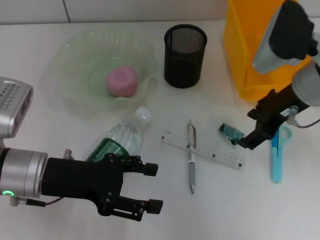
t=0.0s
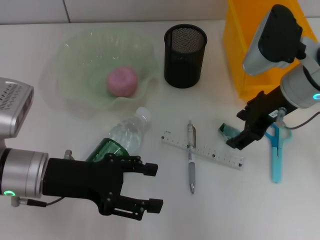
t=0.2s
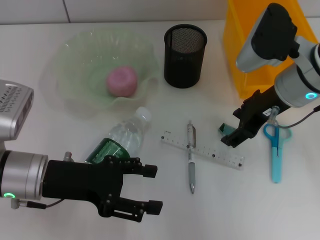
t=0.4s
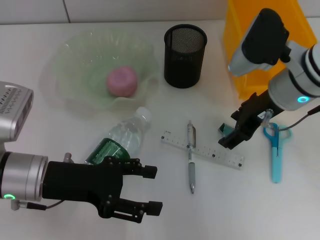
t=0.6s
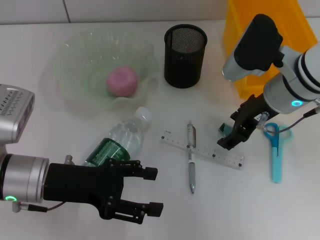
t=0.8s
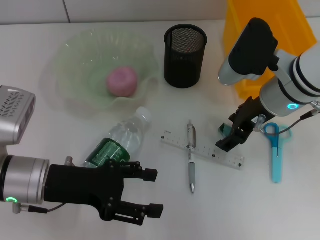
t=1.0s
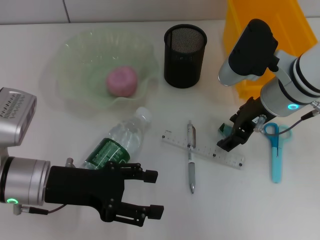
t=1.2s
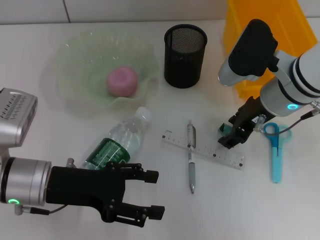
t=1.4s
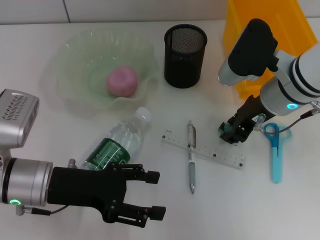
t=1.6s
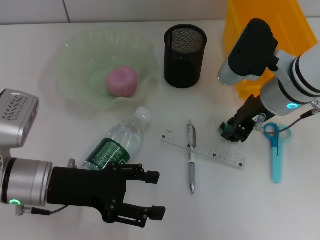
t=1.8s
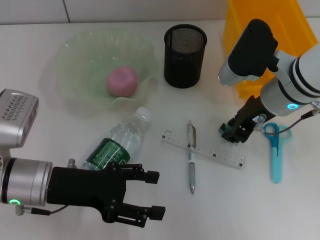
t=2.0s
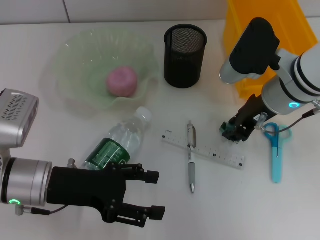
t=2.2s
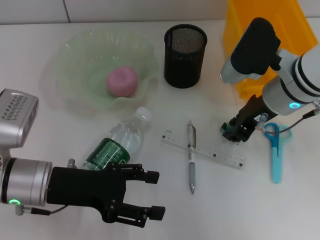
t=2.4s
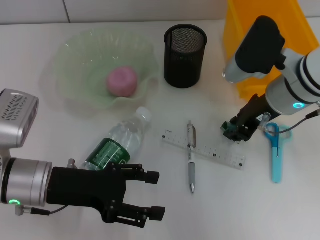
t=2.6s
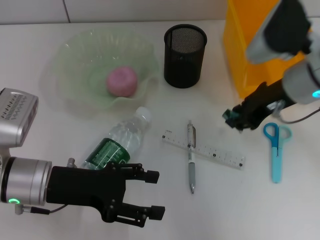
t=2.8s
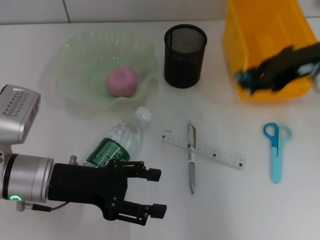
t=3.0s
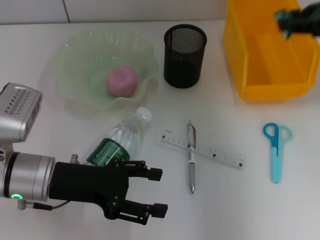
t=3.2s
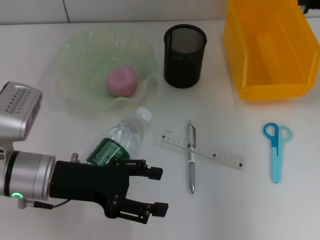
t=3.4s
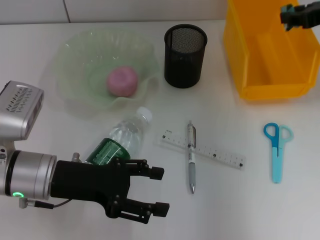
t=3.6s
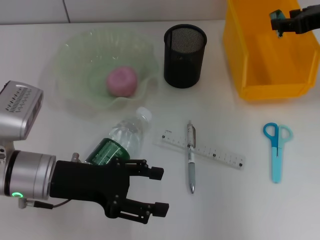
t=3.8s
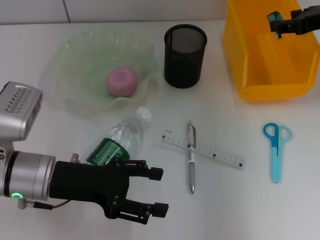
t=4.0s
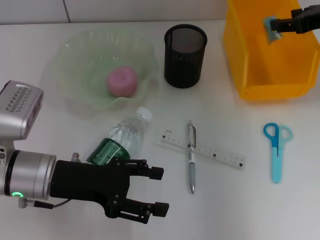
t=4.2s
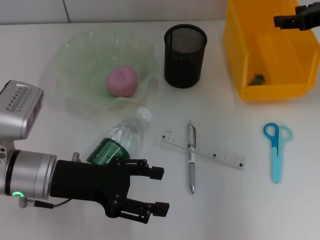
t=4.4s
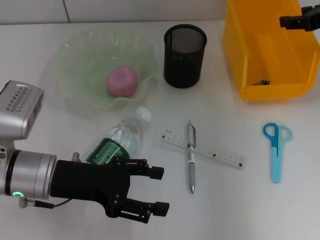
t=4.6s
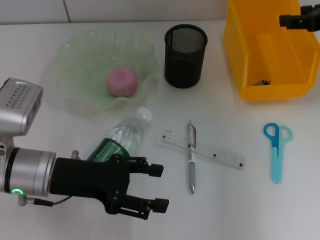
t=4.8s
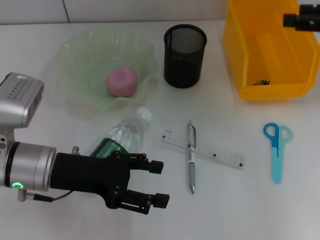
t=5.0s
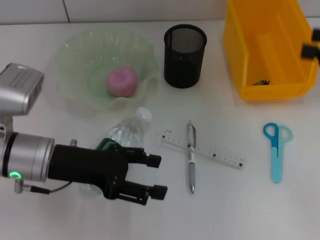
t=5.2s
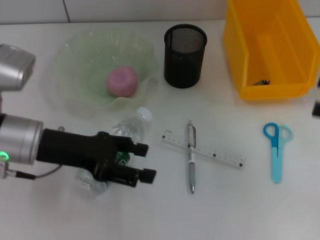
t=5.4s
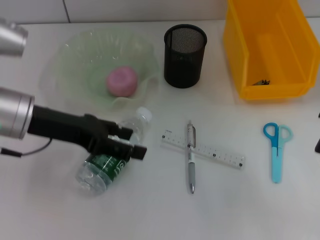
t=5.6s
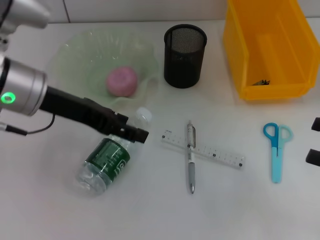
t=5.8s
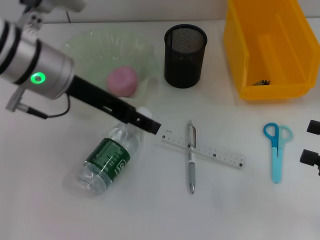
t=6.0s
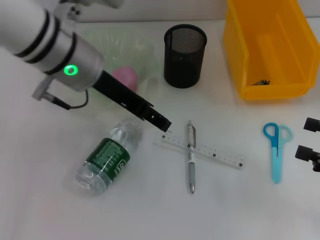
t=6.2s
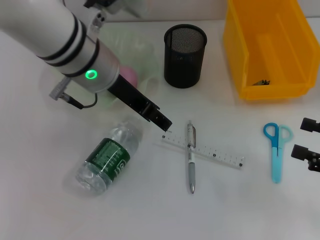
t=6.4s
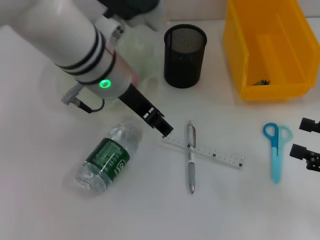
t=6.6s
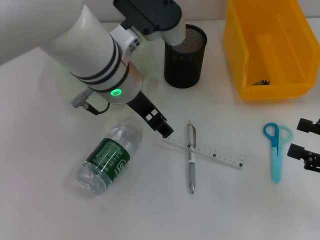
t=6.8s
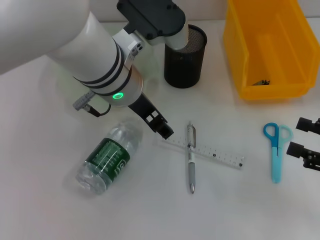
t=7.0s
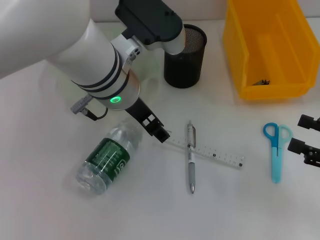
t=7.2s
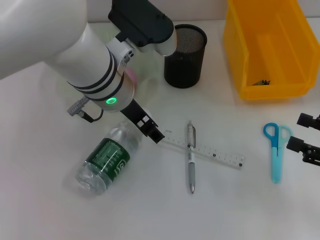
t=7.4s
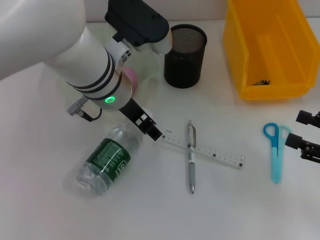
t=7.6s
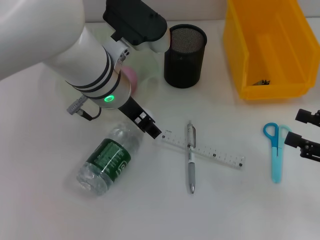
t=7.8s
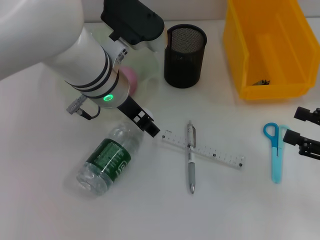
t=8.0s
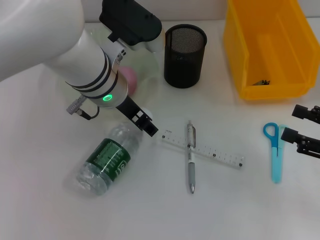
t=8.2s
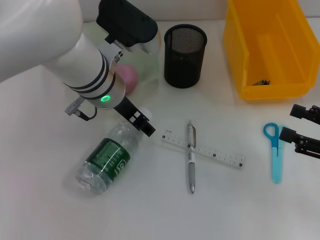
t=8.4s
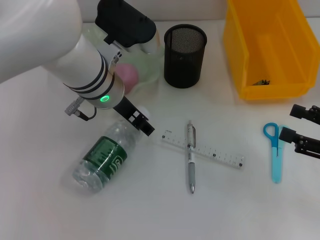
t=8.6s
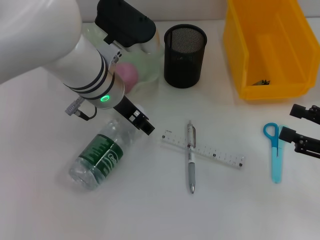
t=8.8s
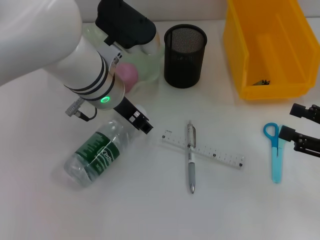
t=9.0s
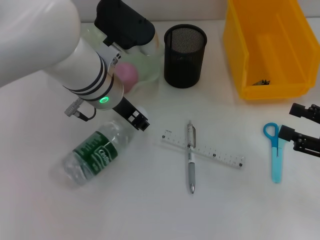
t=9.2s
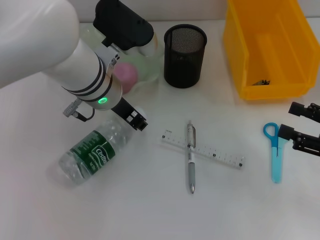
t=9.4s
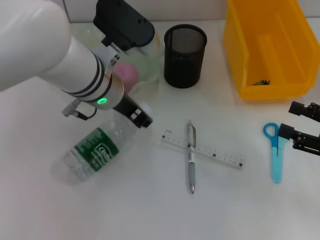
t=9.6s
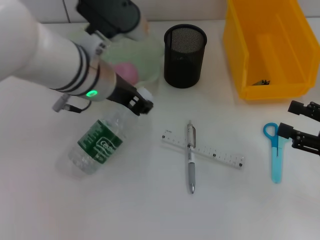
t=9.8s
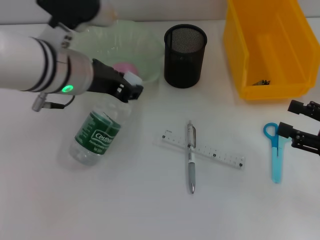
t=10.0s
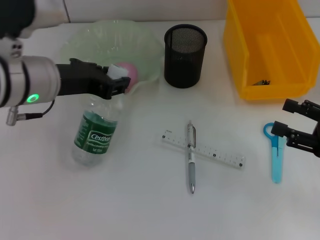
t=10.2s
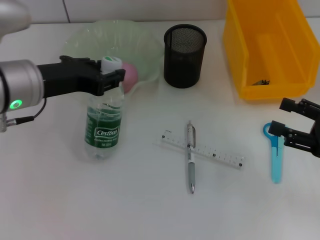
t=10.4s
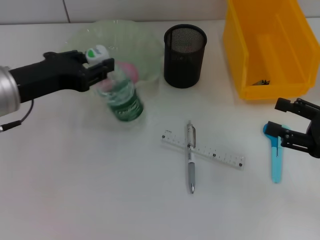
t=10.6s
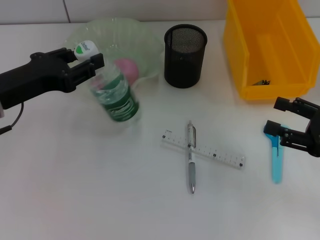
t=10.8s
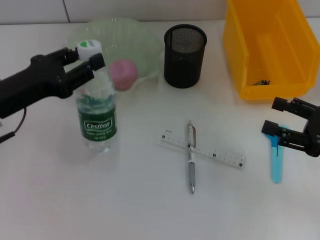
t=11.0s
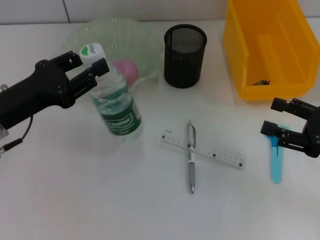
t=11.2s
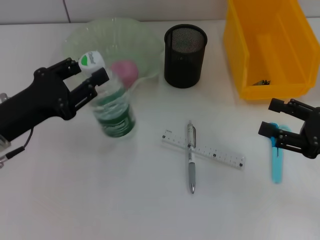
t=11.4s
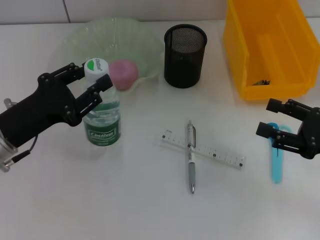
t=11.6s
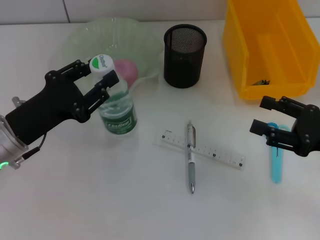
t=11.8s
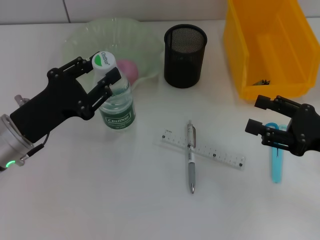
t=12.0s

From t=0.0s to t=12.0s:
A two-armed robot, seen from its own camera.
Step, from t=0.0s to t=1.8s: Grab the plastic with the right hand.
Step, from t=2.0s to t=4.2s: Place the plastic into the trash can with the right hand.
Step, from t=4.6s to t=9.2s: Grab the water bottle with the left hand.
From t=1.6s to t=3.0s: The right gripper moves upward and to the right, about 10 cm, and closes up.
From t=3.0s to t=4.4s: The right gripper shifts some 10 cm to the right and forward, and opens its fingers.
From t=4.4s to t=6.0s: The left gripper shifts roughly 15 cm upward, forward and to the right; the right gripper heads backward and downward, covering some 25 cm.
From t=6.0s to t=7.6s: The left gripper heads to the right, covering roughly 10 cm.
From t=7.6s to t=9.0s: The grippers make only small movements.
From t=9.0s to t=10.4s: The left gripper heads to the left and backward, covering approximately 10 cm, and closes its fingers.
From t=10.4s to t=12.0s: The left gripper travels downward by roughly 10 cm.

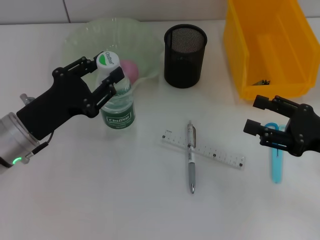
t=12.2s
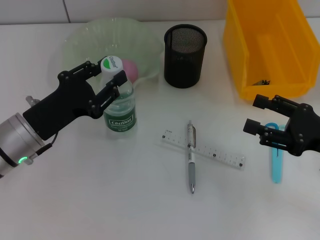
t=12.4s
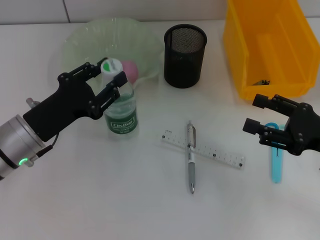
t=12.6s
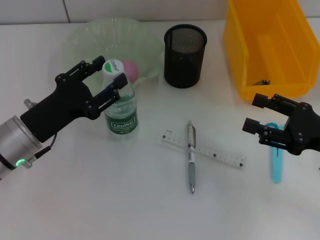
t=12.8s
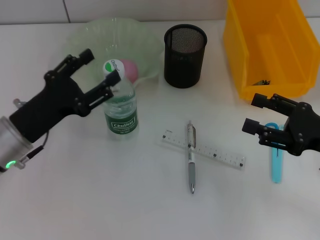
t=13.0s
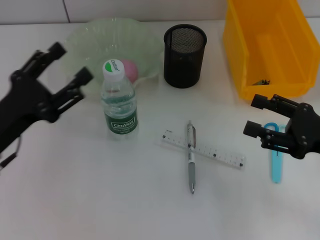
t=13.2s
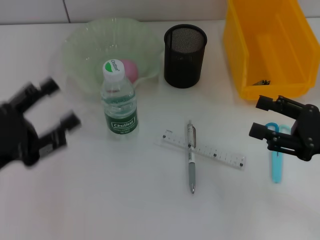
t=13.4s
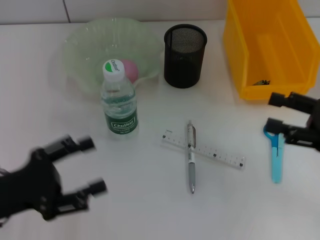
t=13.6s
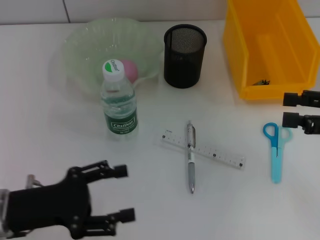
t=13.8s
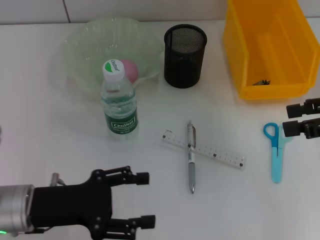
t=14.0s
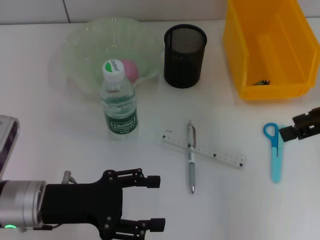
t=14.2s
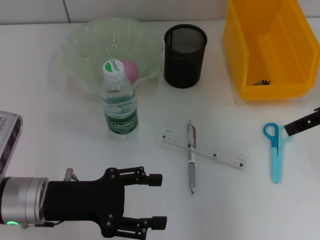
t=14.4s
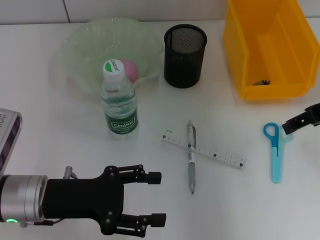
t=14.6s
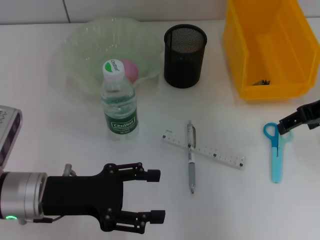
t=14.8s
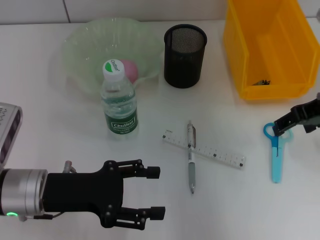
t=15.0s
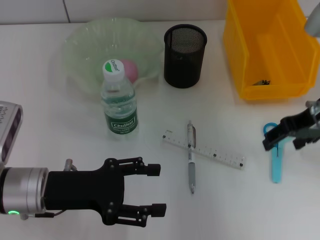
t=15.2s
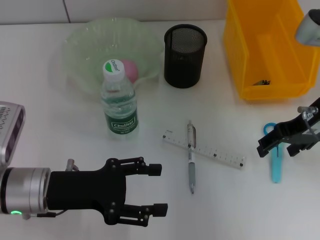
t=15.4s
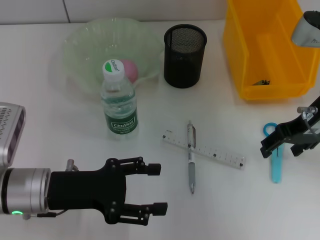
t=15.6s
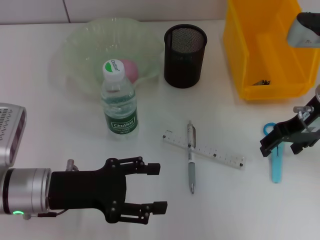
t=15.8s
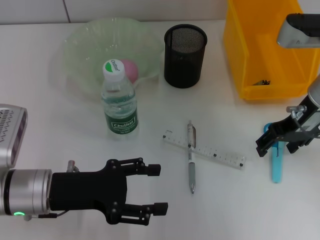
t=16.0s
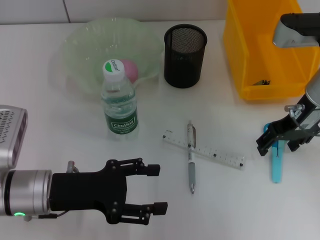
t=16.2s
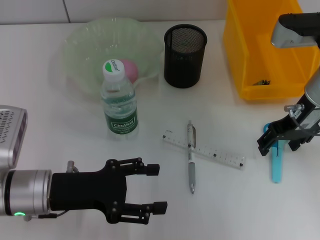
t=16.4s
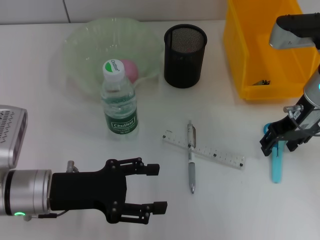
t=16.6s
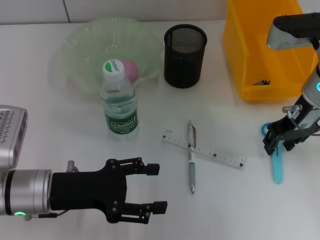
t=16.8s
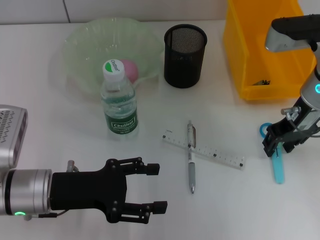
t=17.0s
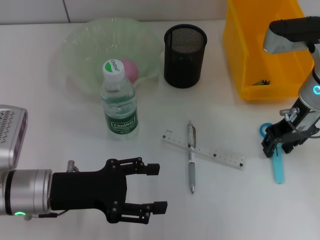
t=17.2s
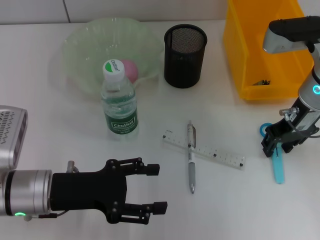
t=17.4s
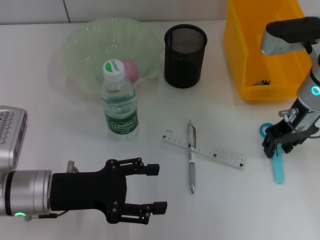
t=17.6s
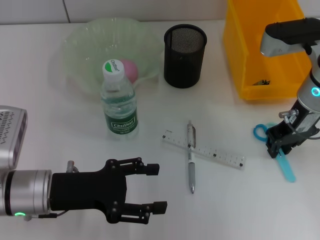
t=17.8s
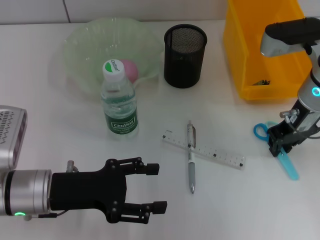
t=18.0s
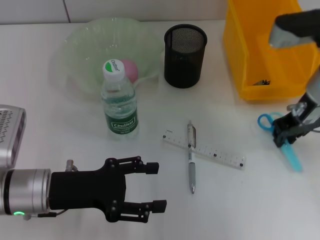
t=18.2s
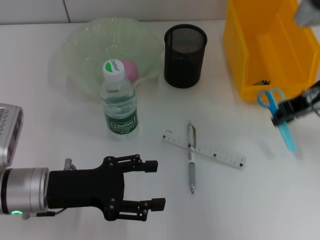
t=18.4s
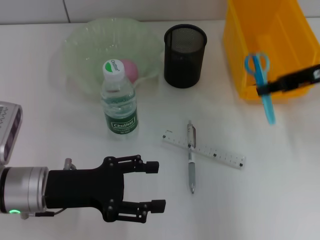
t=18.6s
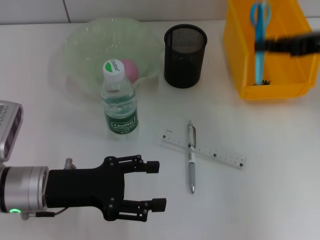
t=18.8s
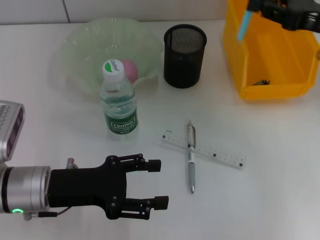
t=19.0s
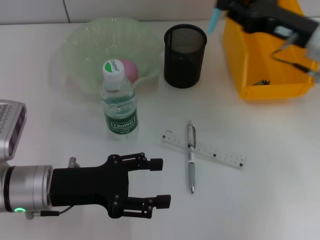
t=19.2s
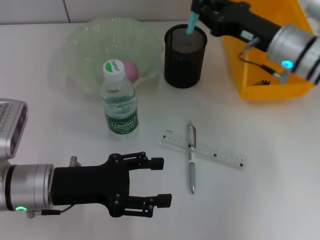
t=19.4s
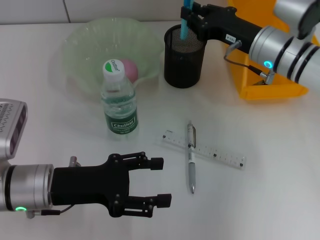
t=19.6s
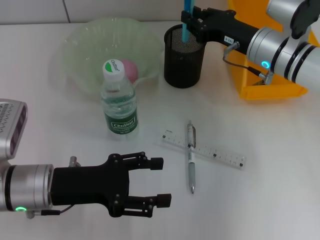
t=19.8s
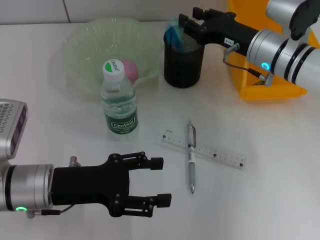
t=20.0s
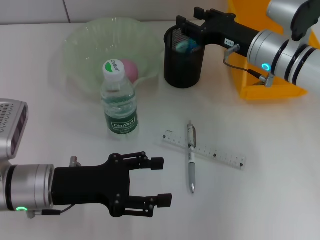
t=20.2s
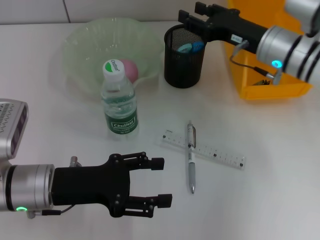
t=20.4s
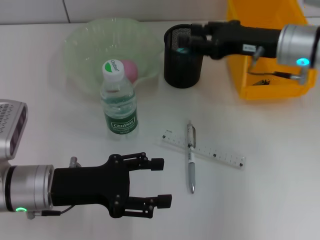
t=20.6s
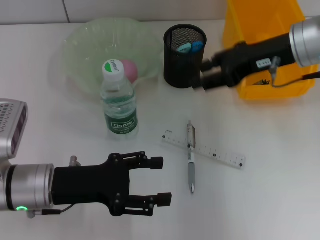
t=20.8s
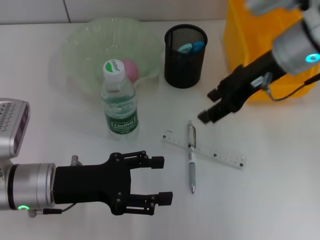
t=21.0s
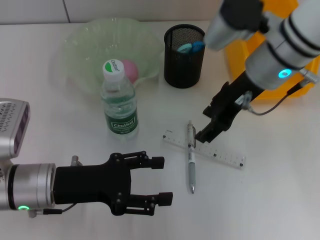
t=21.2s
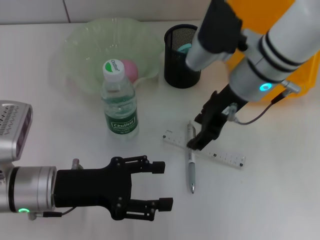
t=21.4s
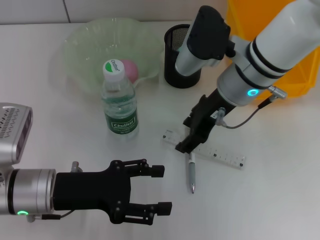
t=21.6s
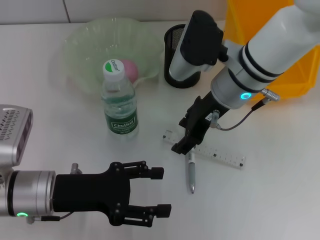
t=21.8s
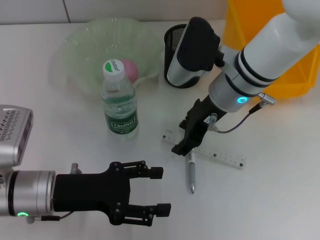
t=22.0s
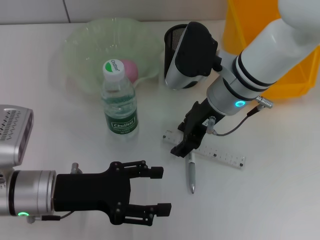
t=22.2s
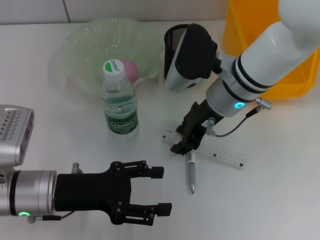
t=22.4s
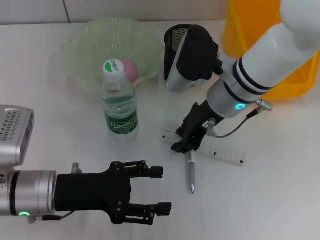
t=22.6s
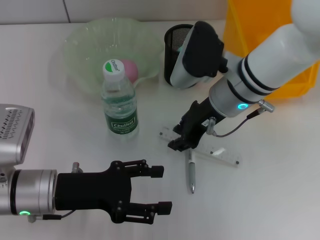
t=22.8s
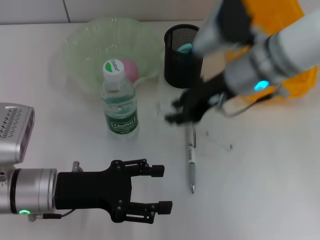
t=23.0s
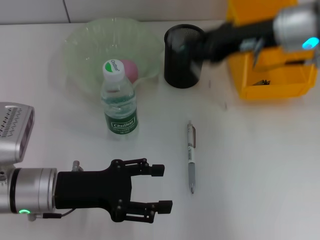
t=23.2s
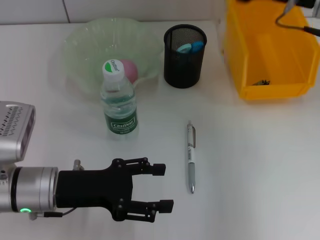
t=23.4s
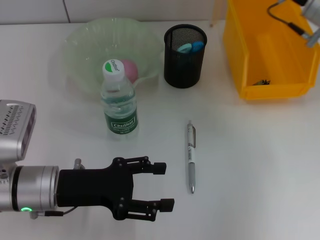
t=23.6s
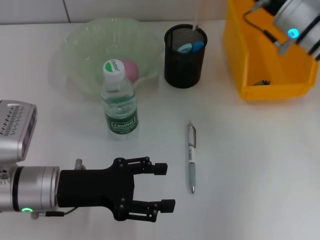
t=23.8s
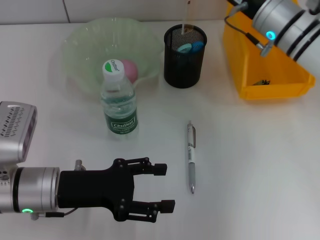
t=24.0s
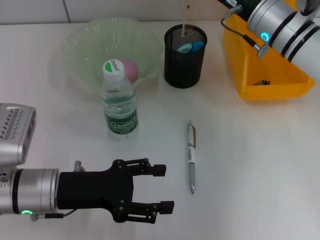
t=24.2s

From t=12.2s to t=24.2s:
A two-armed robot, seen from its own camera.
Step, from t=13.0s to t=17.6s: Grab the blue scissors with the right hand.
Step, from t=18.0s to t=20.2s: Place the blue scissors into the pen holder with the right hand.
Step, from t=20.4s to t=22.6s: Grab the ruler with the right hand.
From t=12.2s to t=13.8s: The right gripper heads upward, covering roughly 5 cm. Meanwhile the left gripper is displaced backward by roughly 5 cm, and opens.
From t=13.8s to t=15.2s: The left gripper shifts by approximately 5 cm, while the right gripper shifts about 10 cm to the left and forward.
From t=15.2s to t=16.6s: The grippers make only small movements.
From t=16.6s to t=18.2s: The right gripper closes its fingers.
From t=18.2s to t=19.8s: The right gripper shifts by about 5 cm.
From t=19.8s to t=21.2s: The right gripper is displaced upward by roughly 10 cm, and opens.
From t=21.2s to t=22.6s: The right gripper shifts about 5 cm downward.
From t=22.6s to t=24.2s: The right gripper goes some 10 cm to the right and forward.
